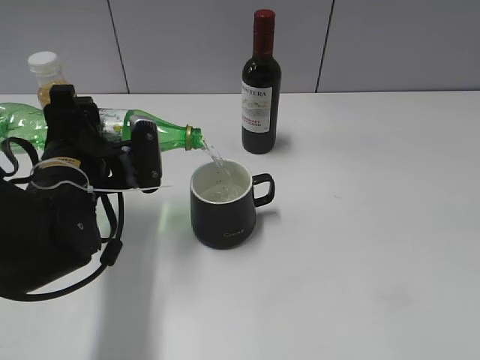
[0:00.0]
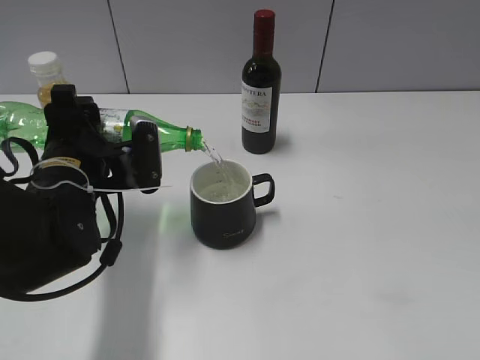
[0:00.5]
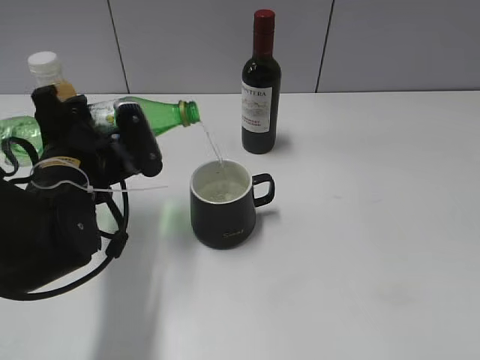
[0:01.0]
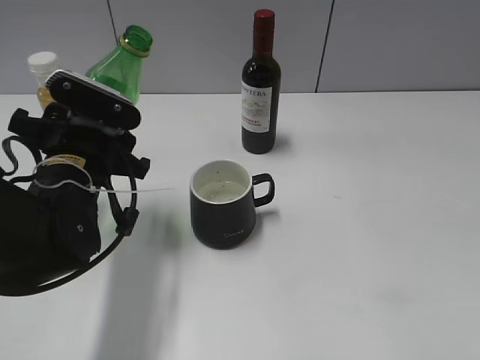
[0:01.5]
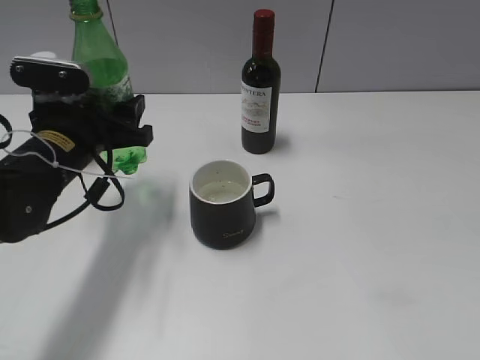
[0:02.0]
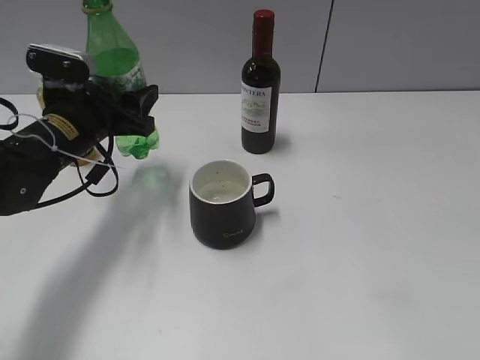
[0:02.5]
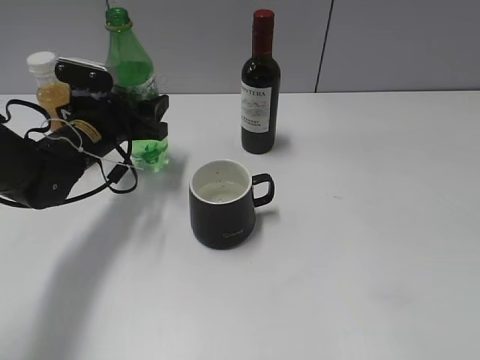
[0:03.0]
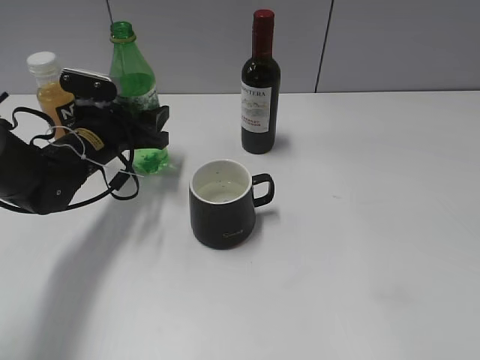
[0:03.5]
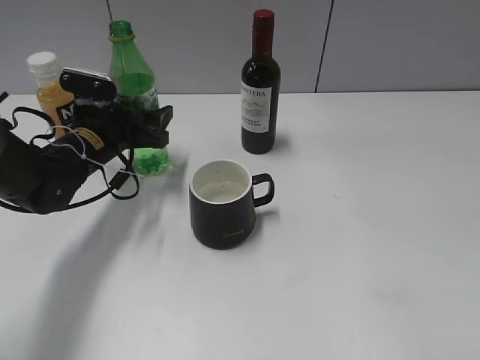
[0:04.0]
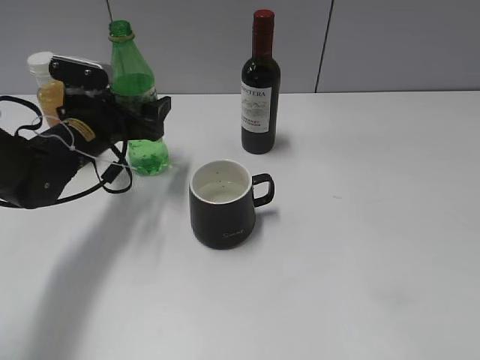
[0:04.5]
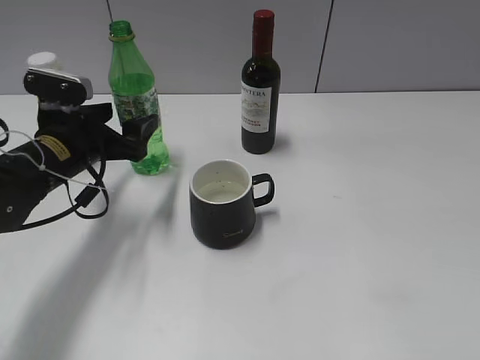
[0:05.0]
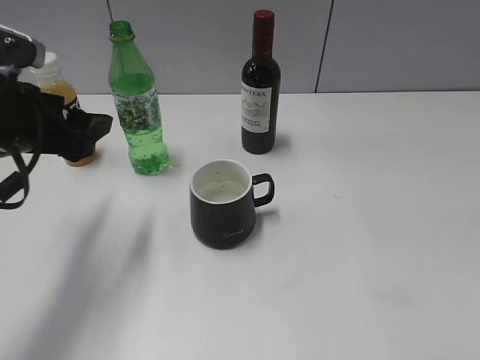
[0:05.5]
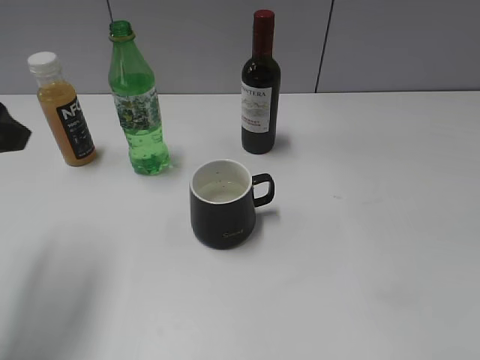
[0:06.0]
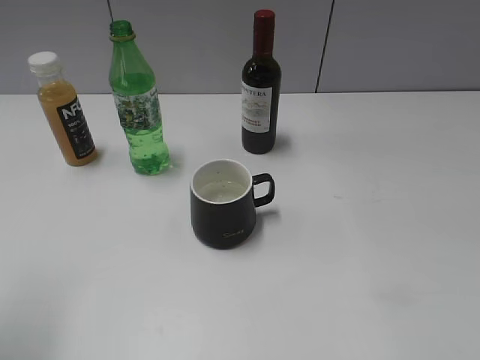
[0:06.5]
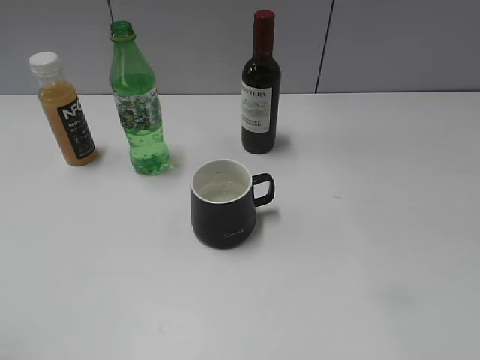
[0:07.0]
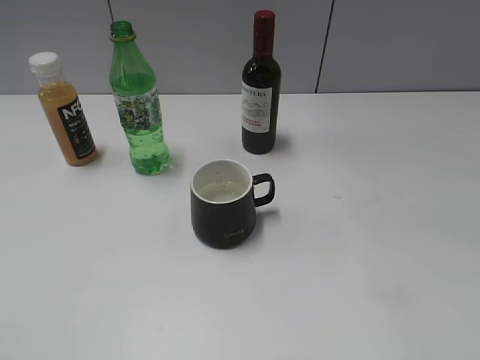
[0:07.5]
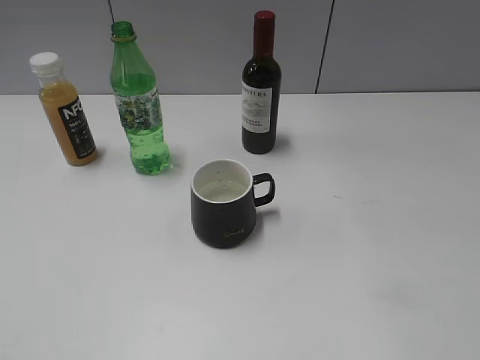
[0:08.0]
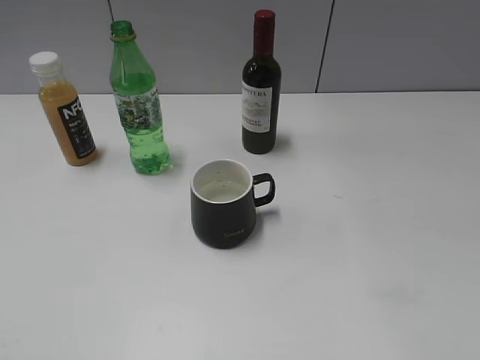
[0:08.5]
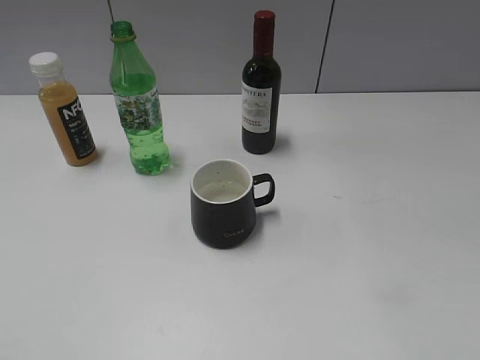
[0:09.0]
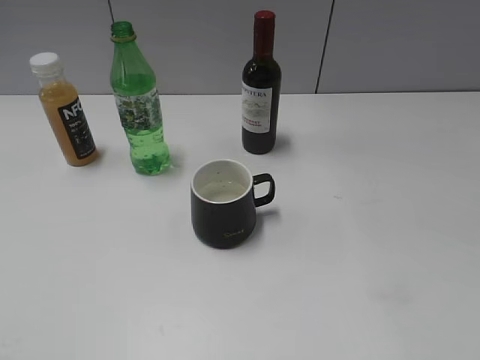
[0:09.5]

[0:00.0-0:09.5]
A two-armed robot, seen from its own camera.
Step, 1.5 to 4.5 s: Place the sprite bottle on the table with left gripper.
2.0 to 4.0 s: The left gripper heads forward, covering some 10 cm.
4.0 to 5.5 s: The left gripper travels backward and upward by roughly 15 cm.
5.5 to 7.5 s: The left gripper is displaced backward by about 25 cm.

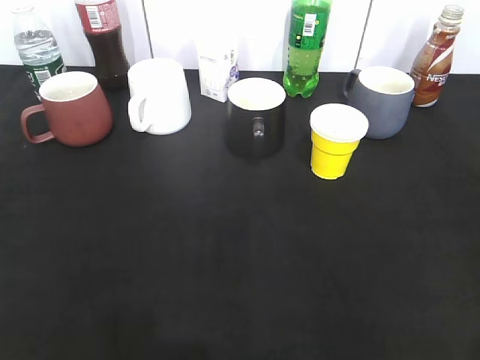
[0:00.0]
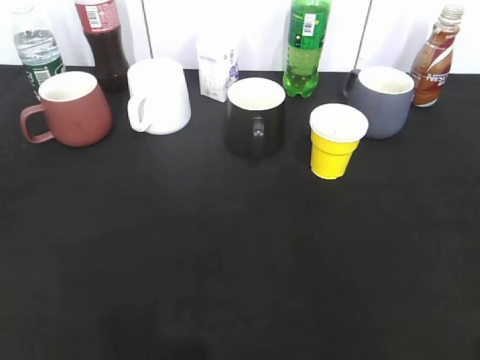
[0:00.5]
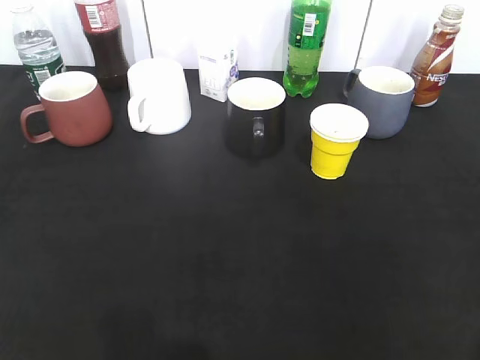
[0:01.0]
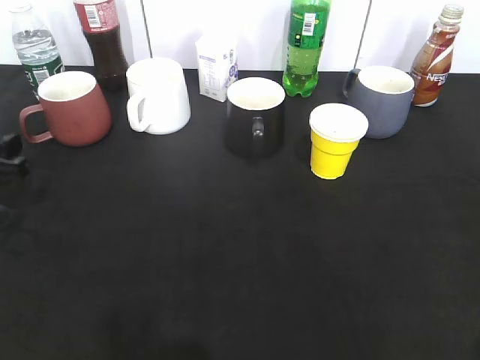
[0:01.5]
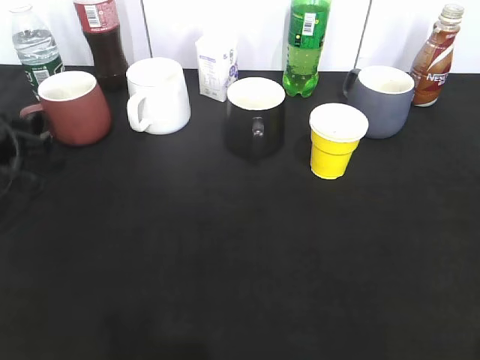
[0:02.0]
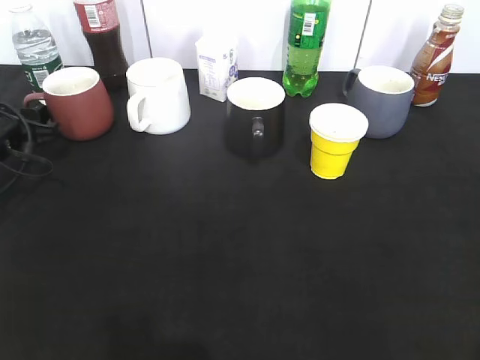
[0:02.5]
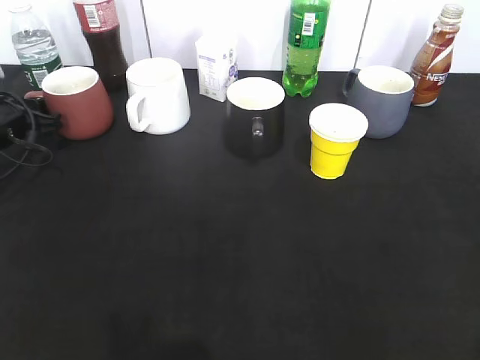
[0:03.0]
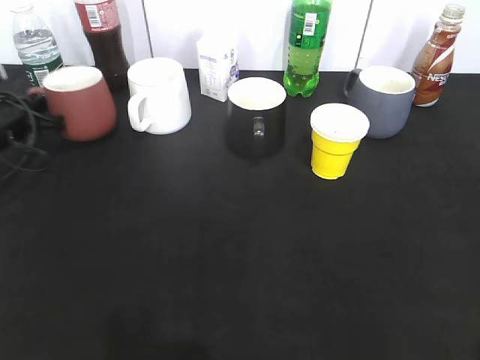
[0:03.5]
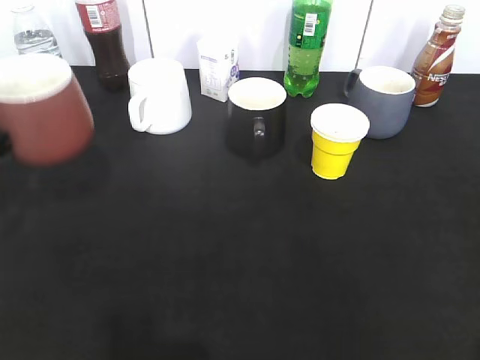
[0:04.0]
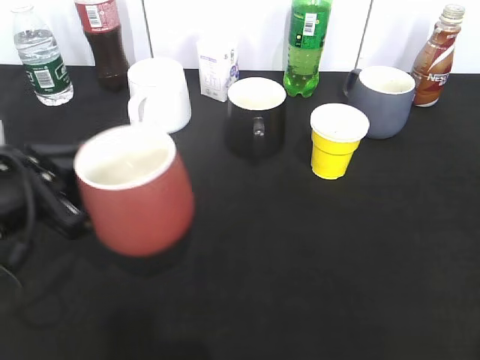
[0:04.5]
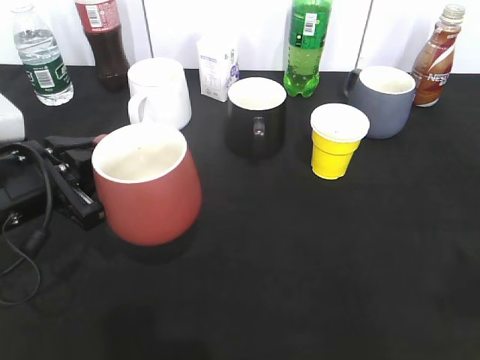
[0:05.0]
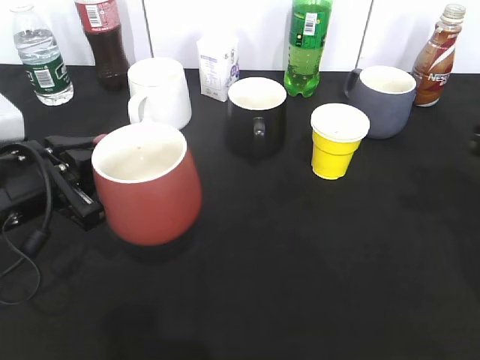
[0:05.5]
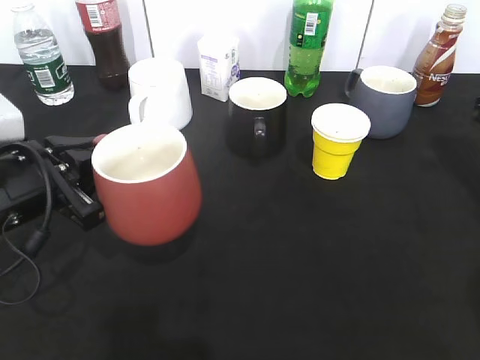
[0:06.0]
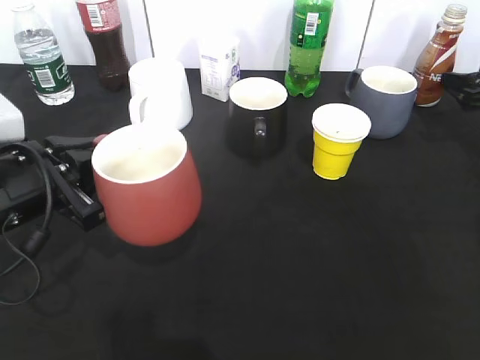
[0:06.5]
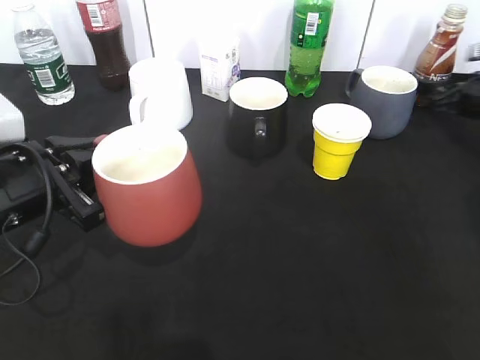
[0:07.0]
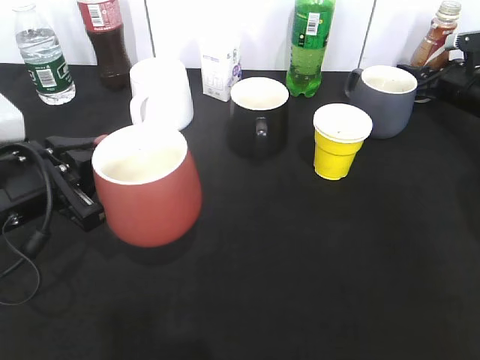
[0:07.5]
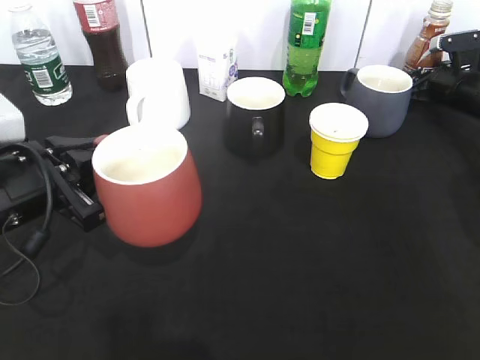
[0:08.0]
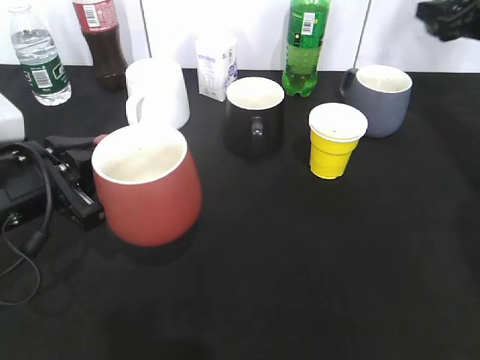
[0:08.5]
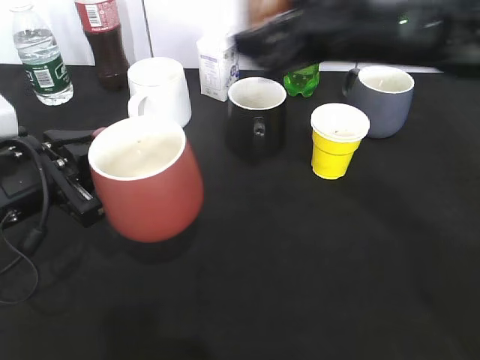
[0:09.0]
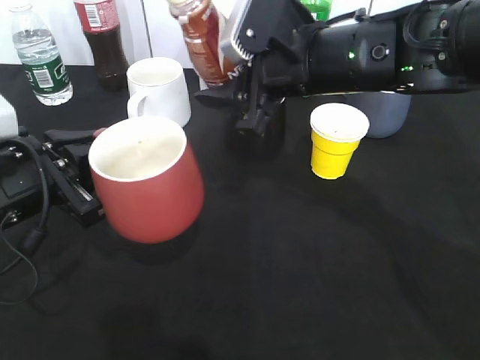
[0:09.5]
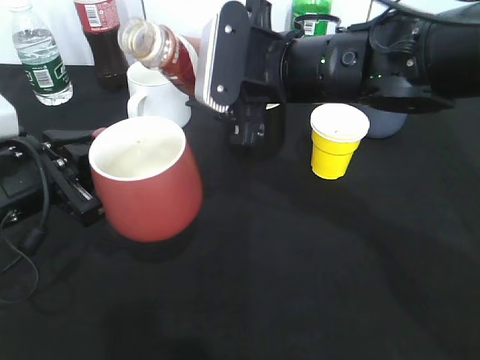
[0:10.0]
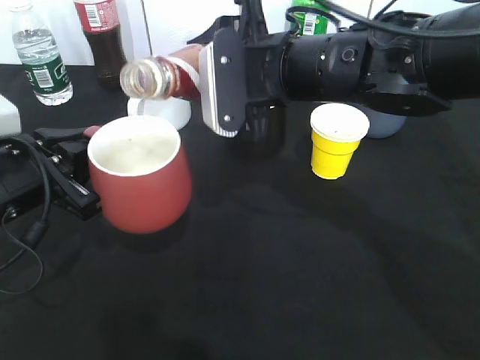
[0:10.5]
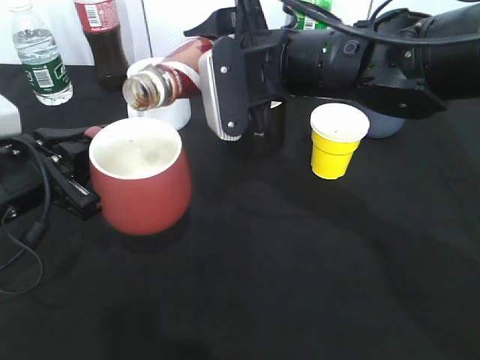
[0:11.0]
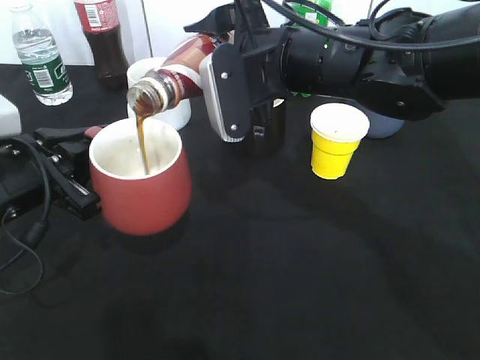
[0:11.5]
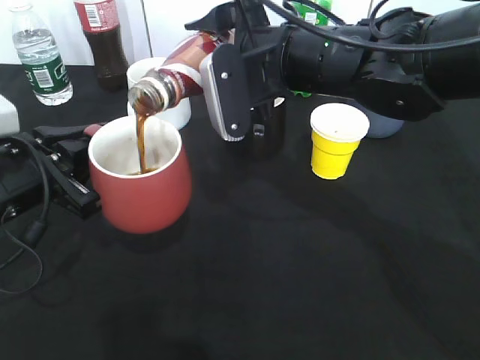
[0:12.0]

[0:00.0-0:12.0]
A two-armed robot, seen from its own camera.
Step, 1.5 to 3.0 s: Grasp the red cup with left gripper.
Step, 3.5 to 5.0 s: Lift the red cup with left gripper.
Step, 5.5 to 7.5 s: Grasp the bottle with coffee with right gripper.
0.0 to 2.0 s: The left gripper moves forward and downward, some 35 cm.
2.0 to 4.0 s: The left gripper shifts some 10 cm backward and upward, and closes up.
4.0 to 6.0 s: The right gripper goes approximately 30 cm forward. Meanwhile the left gripper is displaced to the right by approximately 10 cm.
6.0 to 8.0 s: The right gripper heads forward and downward, covering approximately 20 cm, and opens.
8.0 to 10.0 s: The right gripper goes about 35 cm to the left, backward and upward.

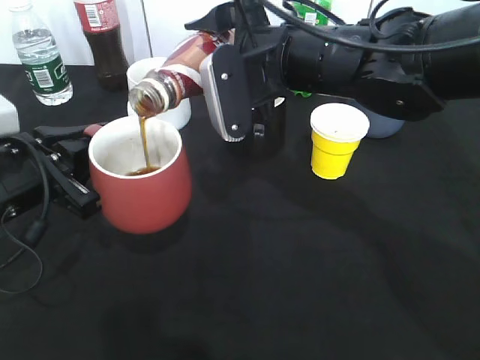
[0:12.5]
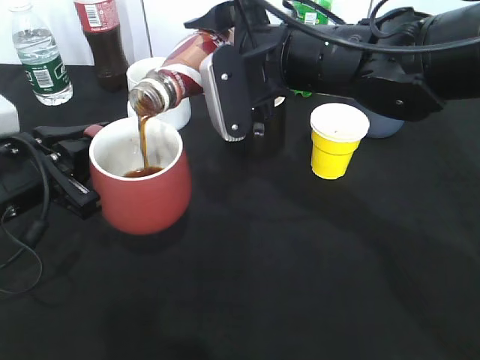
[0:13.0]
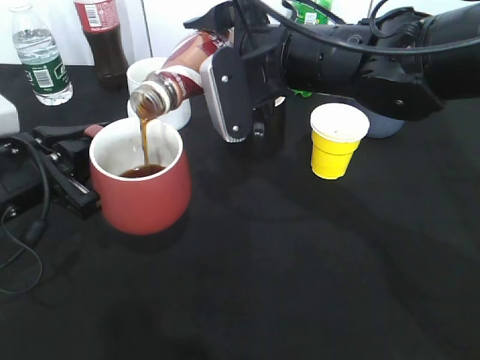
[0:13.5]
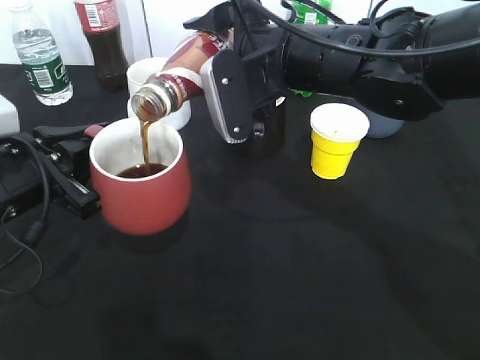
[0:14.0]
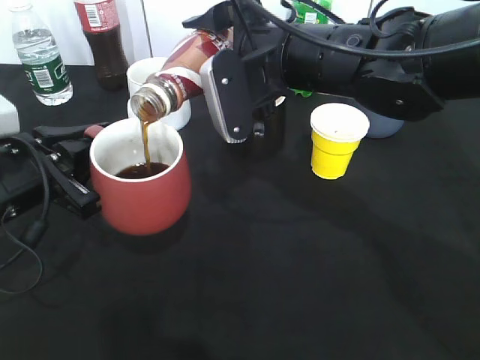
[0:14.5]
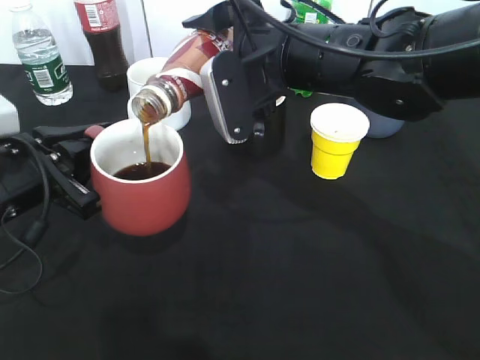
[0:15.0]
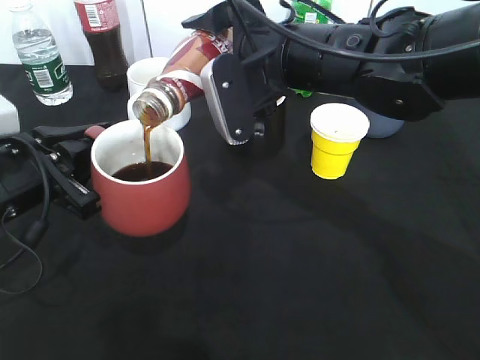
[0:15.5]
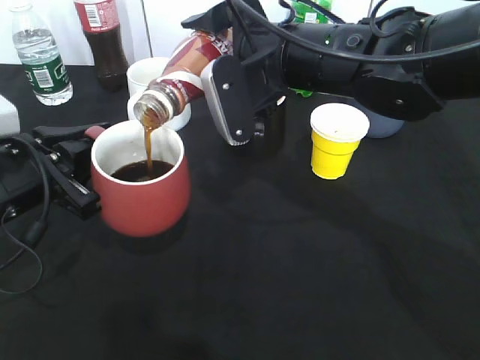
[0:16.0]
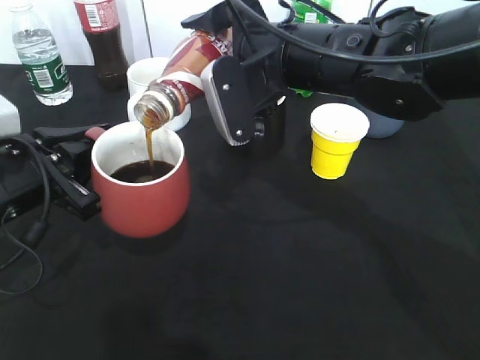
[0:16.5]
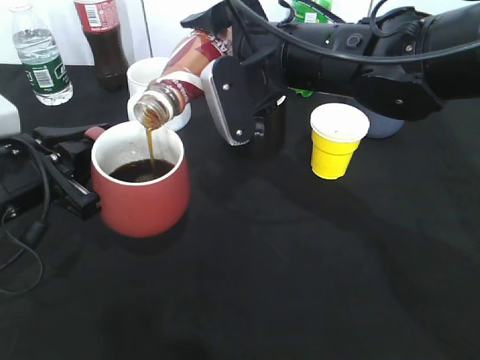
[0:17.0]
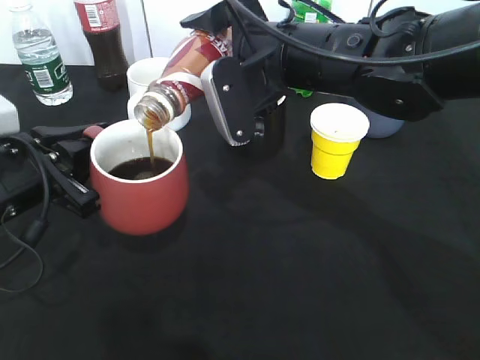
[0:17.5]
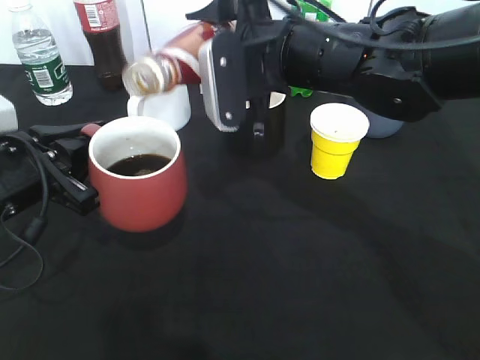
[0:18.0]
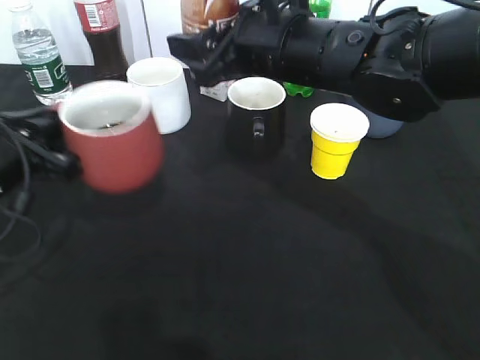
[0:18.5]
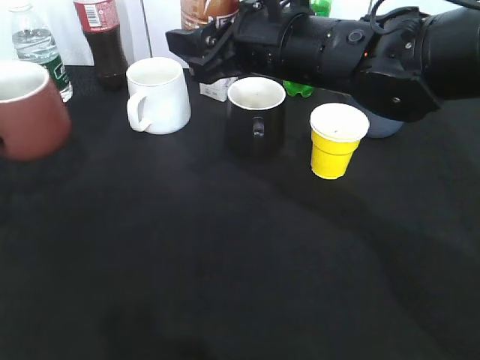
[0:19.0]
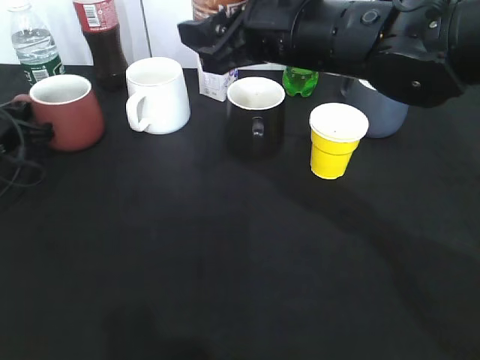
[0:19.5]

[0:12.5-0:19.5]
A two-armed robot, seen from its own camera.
Step, 12.5 to 18.0 s: Pour the coffee from bottle to cup with right gripper.
12.5 to 14.5 s: The two grippers keep their place.
14.5 to 17.5 s: Both grippers stay about where they are.
17.5 to 19.5 s: The left gripper goes about 20 cm forward, to the left and downward.
